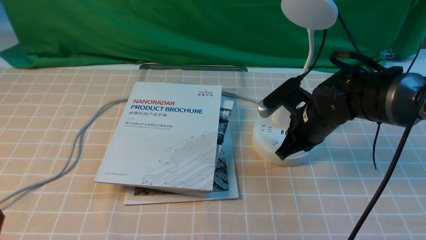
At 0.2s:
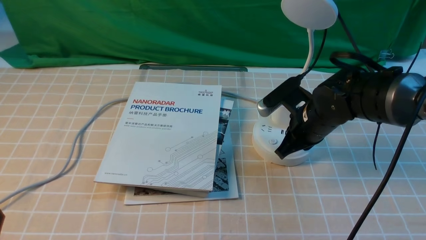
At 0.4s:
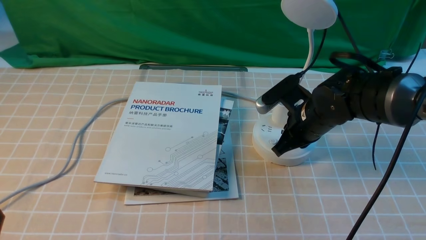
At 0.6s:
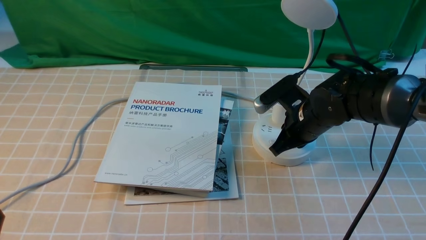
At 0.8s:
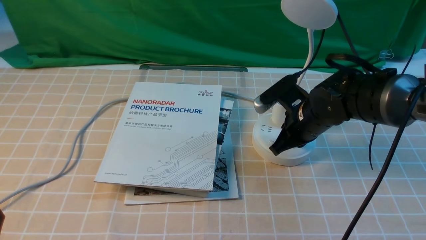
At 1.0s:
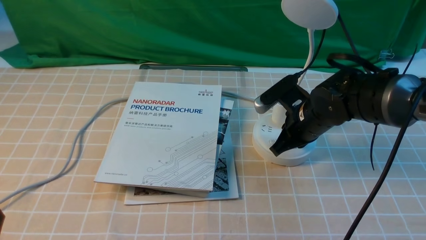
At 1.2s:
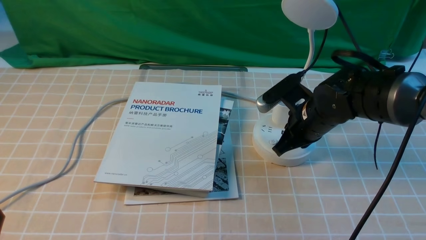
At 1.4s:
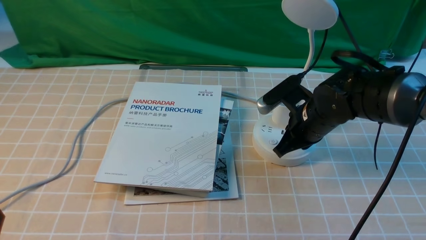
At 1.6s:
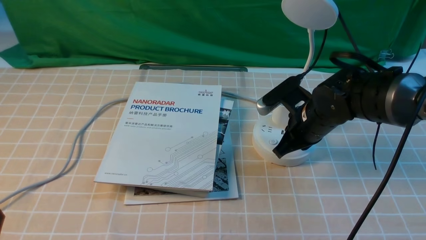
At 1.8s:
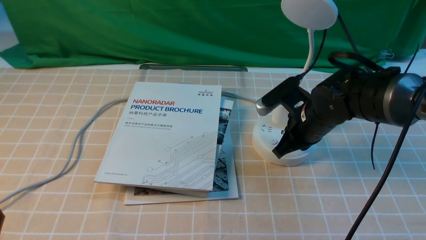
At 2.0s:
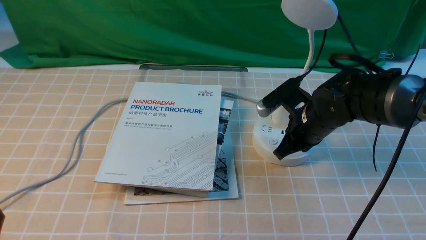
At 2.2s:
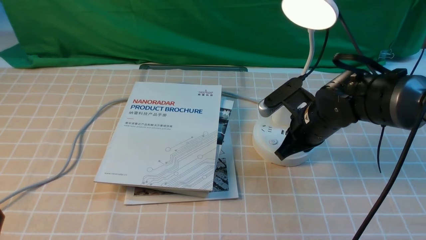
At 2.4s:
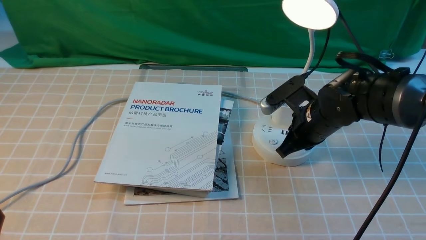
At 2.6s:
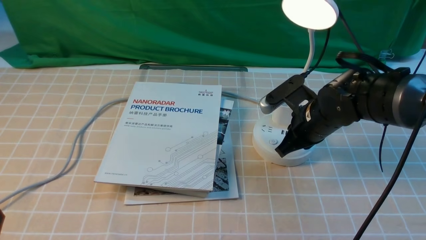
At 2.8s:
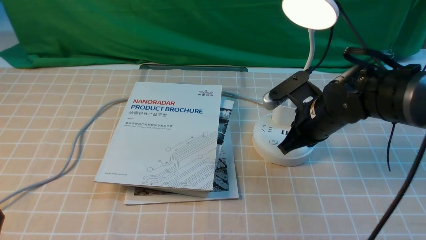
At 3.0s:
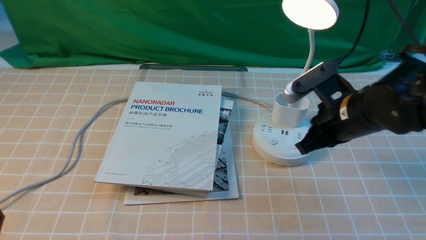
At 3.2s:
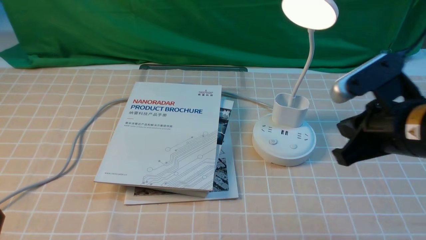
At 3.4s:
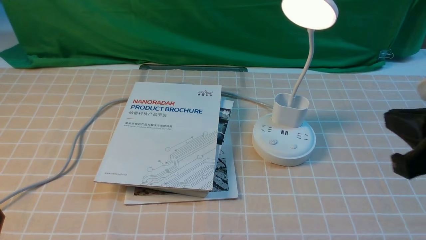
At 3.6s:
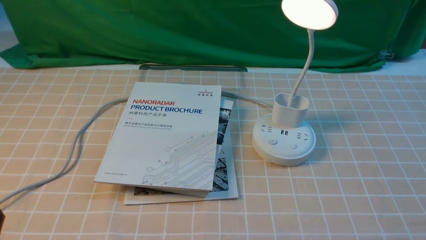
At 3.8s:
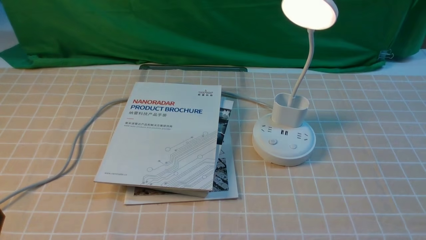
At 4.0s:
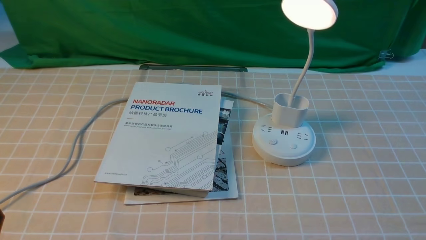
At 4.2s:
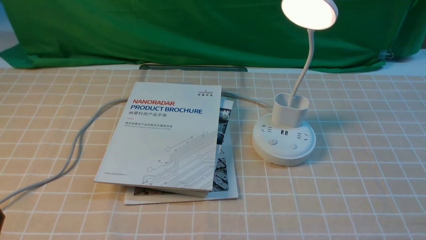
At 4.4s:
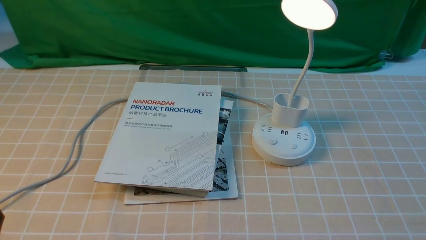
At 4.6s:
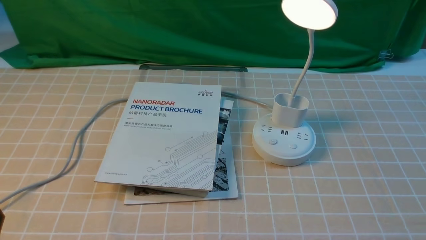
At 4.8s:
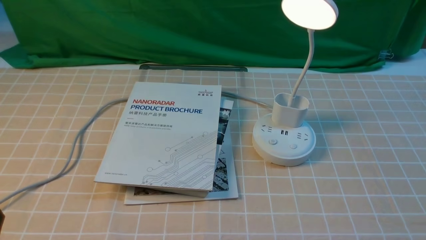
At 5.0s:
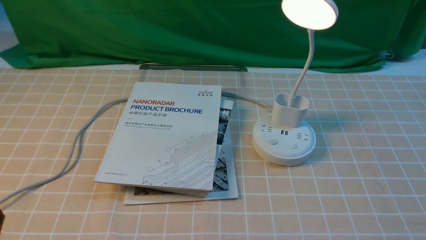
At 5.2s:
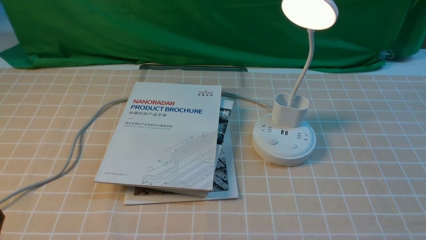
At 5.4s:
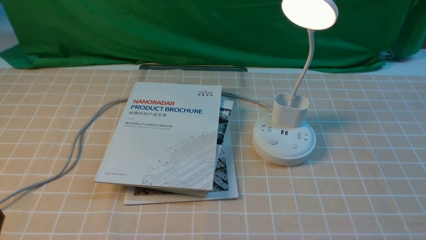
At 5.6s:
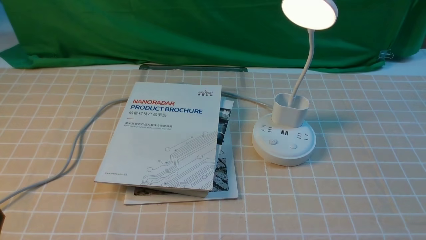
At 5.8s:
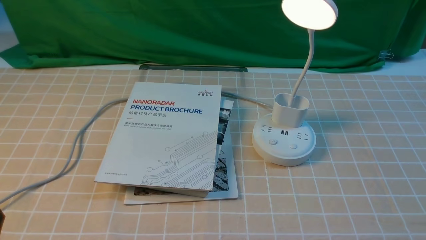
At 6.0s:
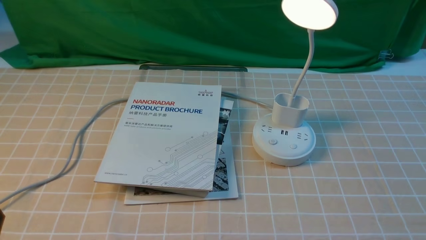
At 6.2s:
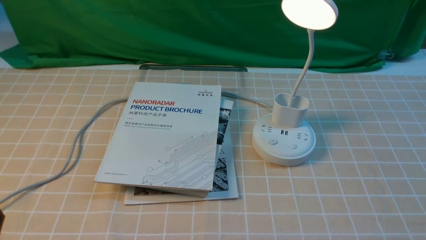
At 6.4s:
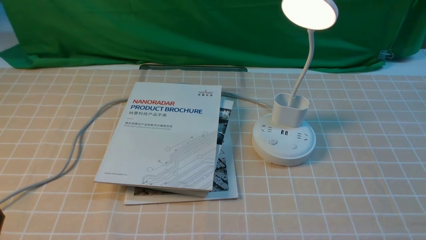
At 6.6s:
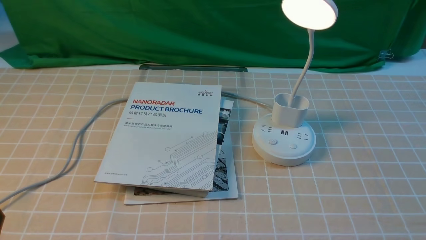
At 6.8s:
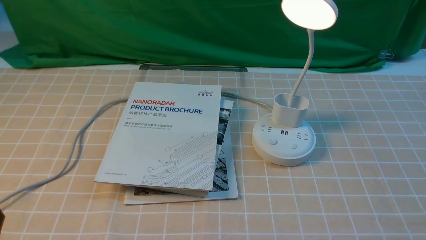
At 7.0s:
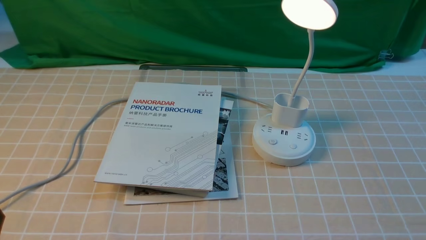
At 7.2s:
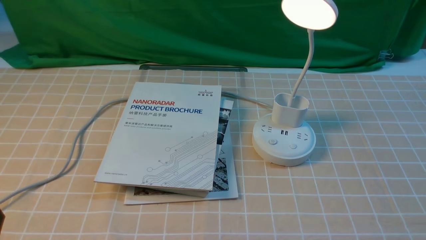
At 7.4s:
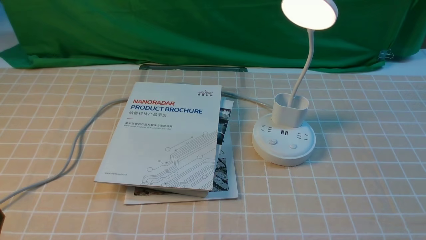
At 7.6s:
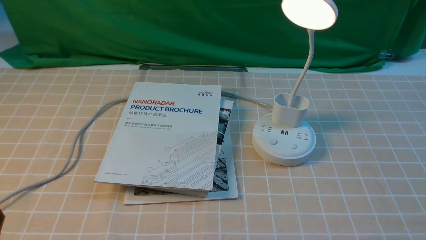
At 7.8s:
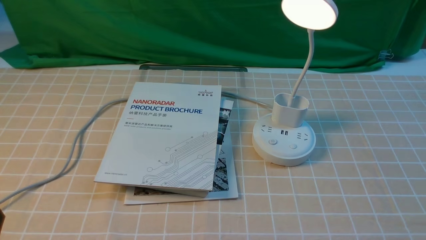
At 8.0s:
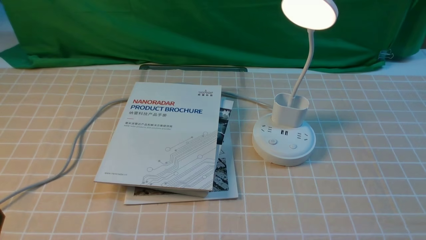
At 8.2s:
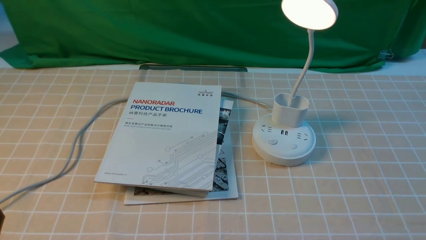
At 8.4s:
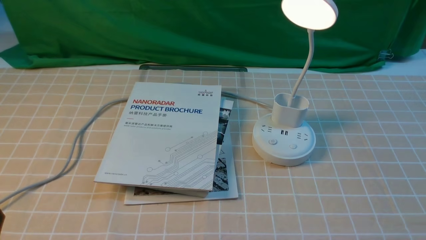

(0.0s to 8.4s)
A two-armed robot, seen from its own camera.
Step, 0.0s - 3.0s: use the right arm to press the button switch on the lamp holder.
0.0s - 1.4s: Neither gripper changes place.
1.4s - 2.8s: There are only small adjustments of the grippers.
2.8s - 4.2s: The right gripper shifts roughly 30 cm backward and to the right.
5.6s - 8.4s: Both grippers stay about where they are.
